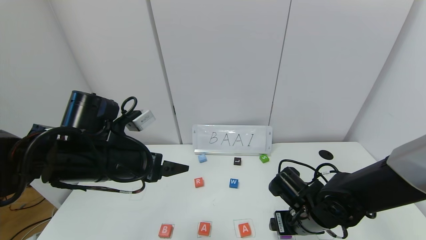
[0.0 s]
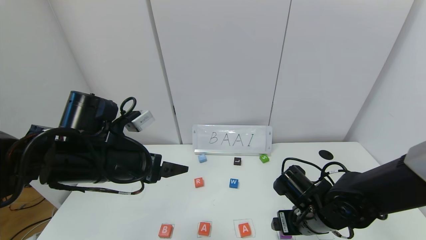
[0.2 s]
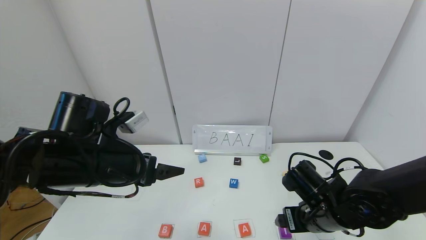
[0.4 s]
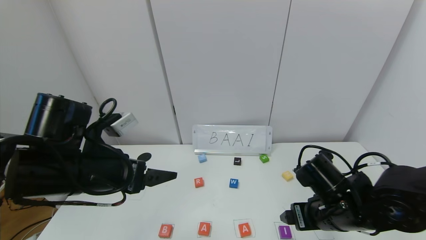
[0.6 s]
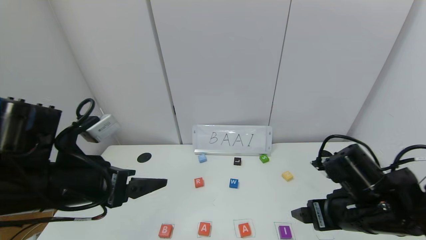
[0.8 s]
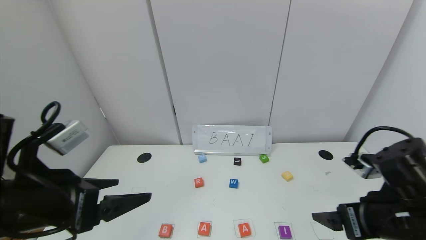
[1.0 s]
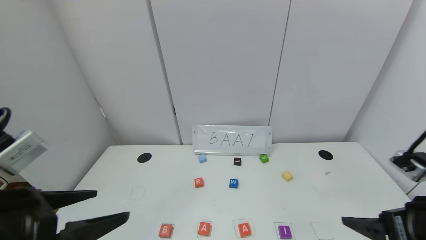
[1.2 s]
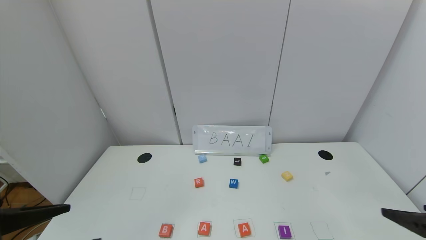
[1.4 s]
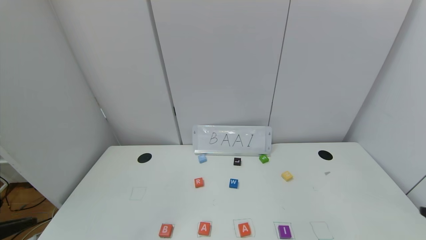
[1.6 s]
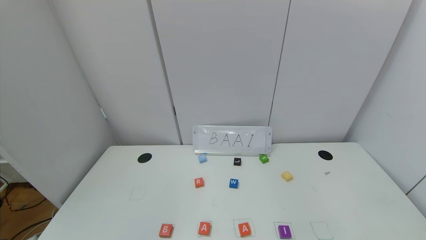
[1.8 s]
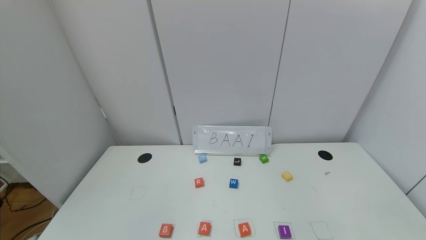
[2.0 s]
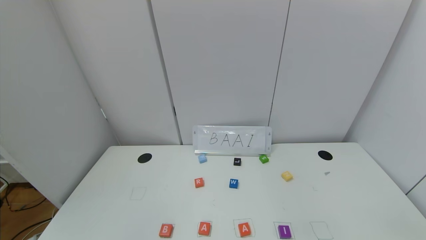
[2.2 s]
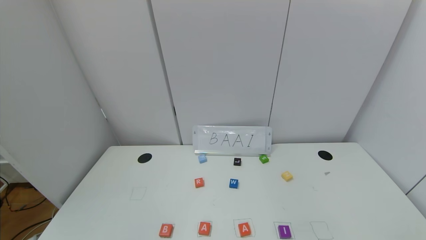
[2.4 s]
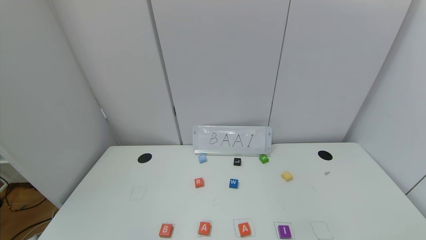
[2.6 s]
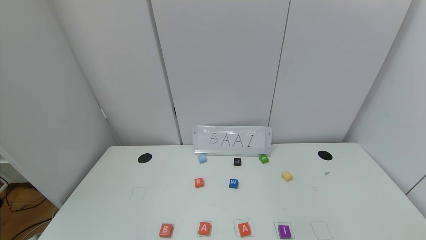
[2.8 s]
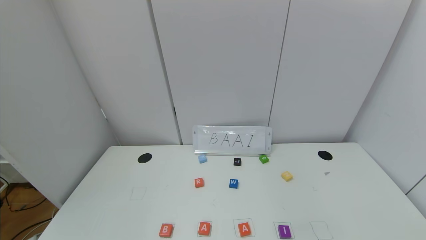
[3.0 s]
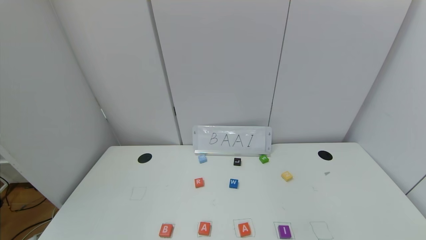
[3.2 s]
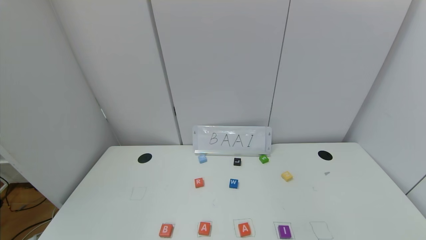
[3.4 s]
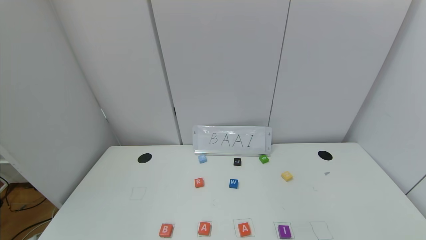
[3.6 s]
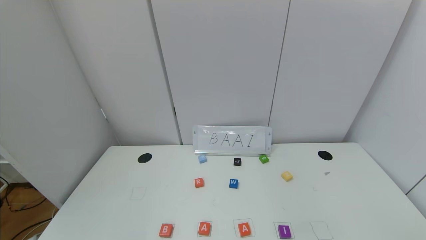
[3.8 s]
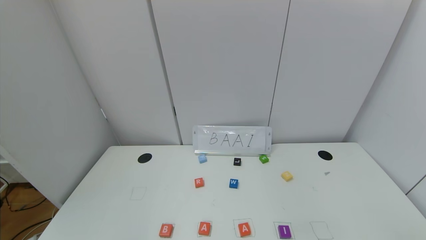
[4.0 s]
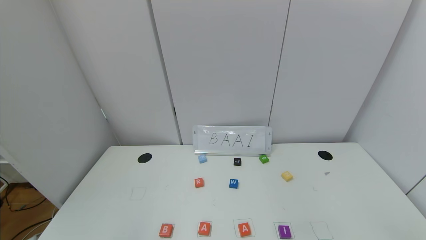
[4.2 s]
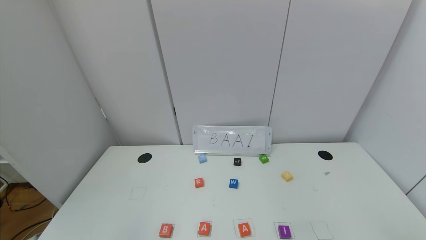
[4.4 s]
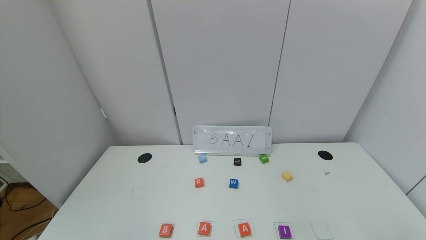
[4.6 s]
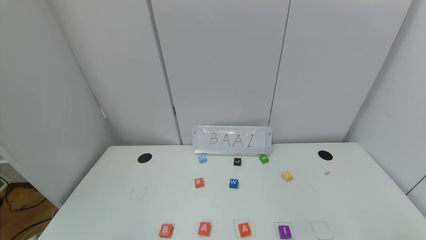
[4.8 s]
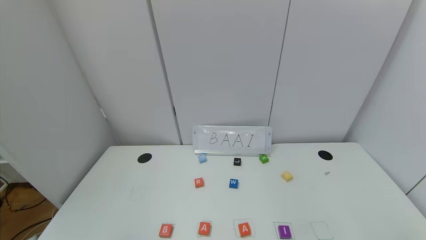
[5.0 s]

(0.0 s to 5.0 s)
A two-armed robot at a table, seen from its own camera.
Task of the whole recording: use the gripper to find blocks with the letters b, a, a, and i on the table and arrange them into BAAI, then find r and N and turn the arranged baai into brian.
0.0 s - 1.6 s: The right gripper shifts approximately 30 cm backward, upward and to the right; the left gripper shifts some 20 cm backward.
